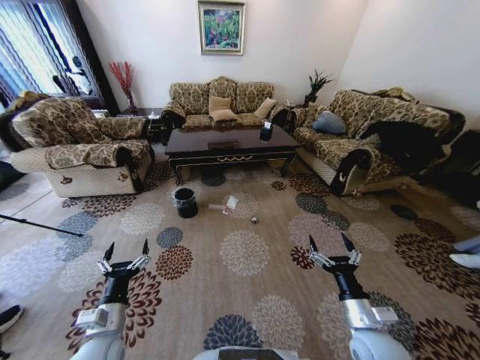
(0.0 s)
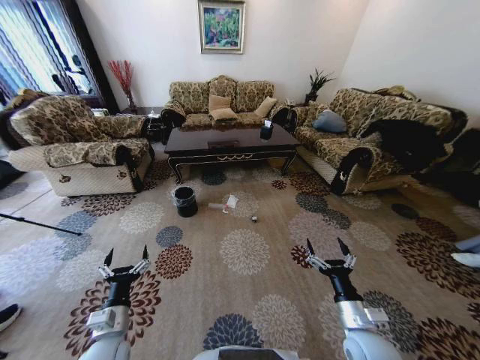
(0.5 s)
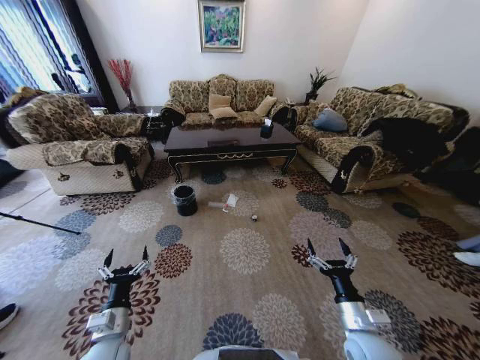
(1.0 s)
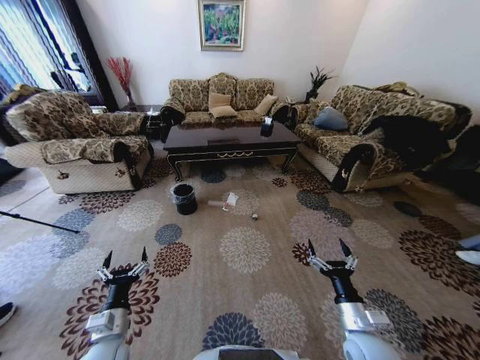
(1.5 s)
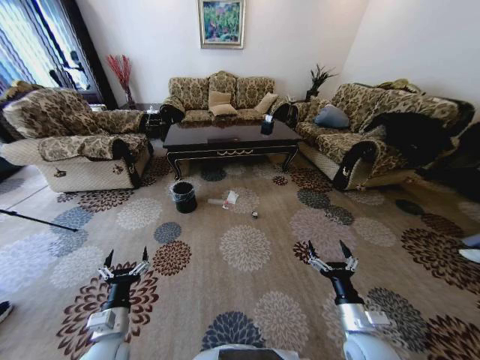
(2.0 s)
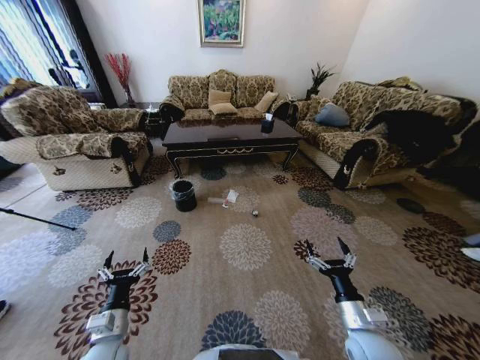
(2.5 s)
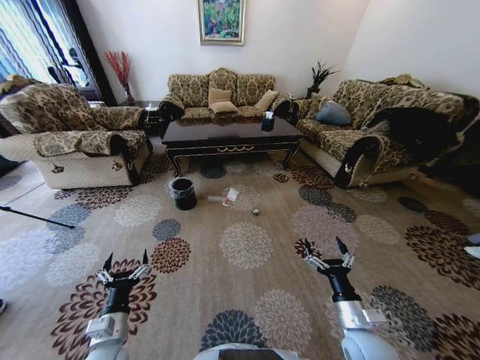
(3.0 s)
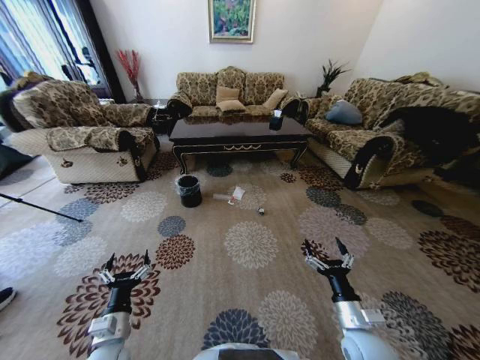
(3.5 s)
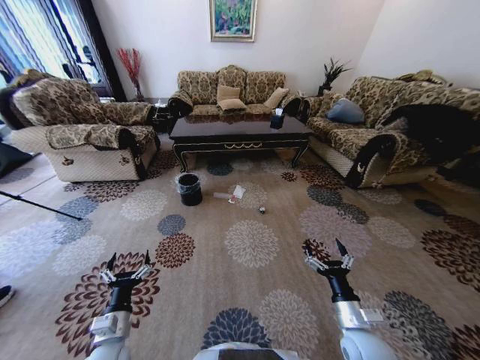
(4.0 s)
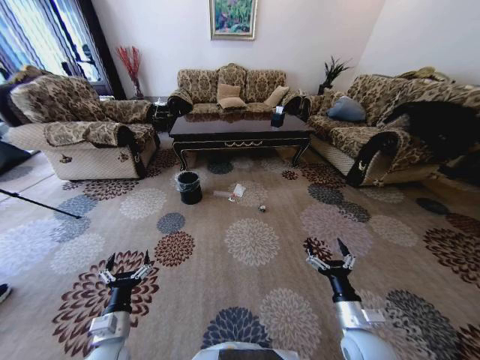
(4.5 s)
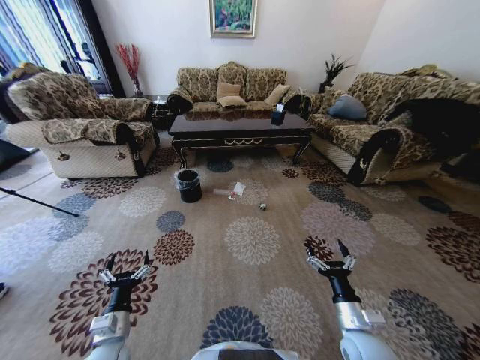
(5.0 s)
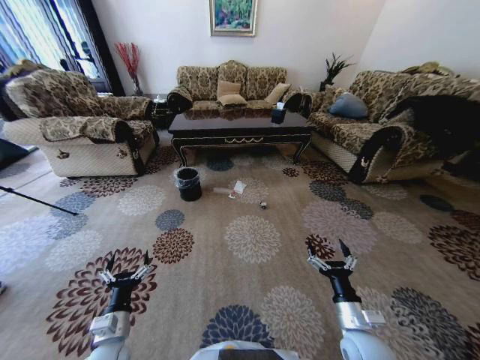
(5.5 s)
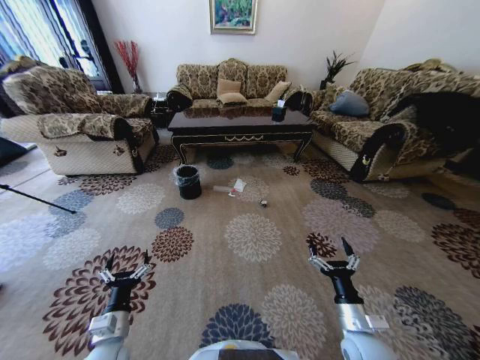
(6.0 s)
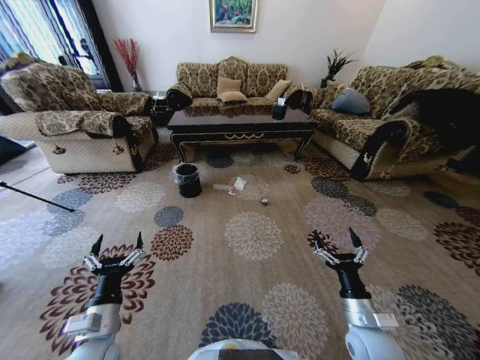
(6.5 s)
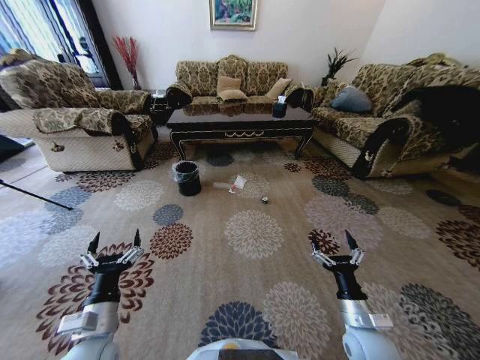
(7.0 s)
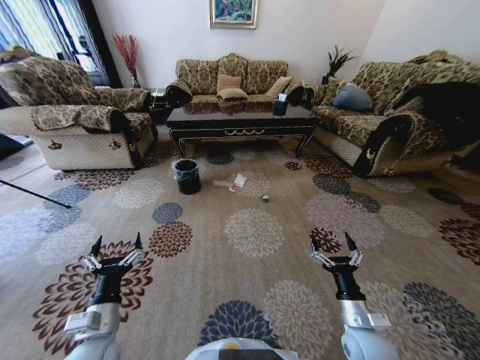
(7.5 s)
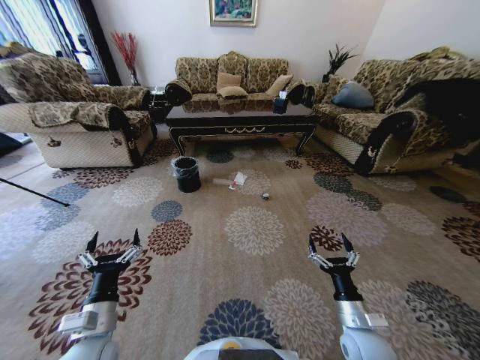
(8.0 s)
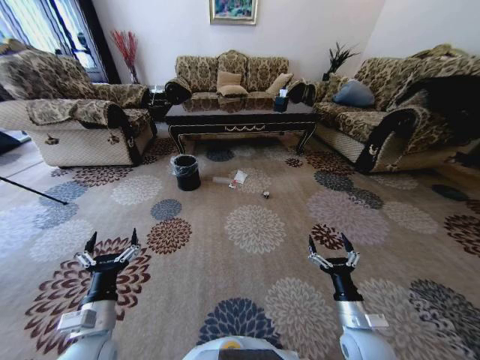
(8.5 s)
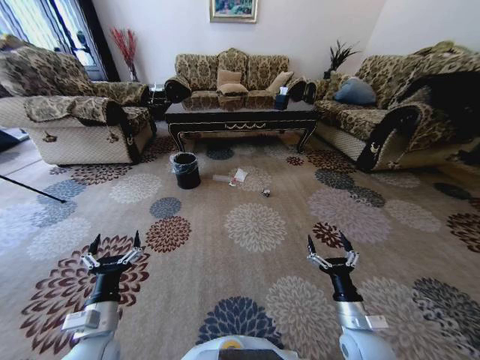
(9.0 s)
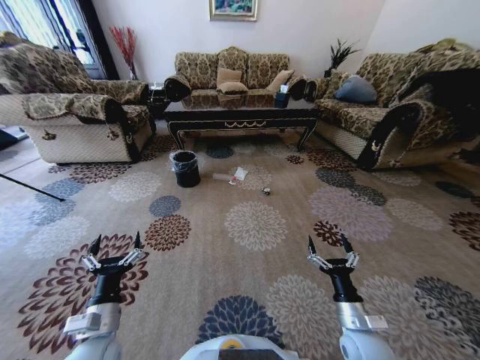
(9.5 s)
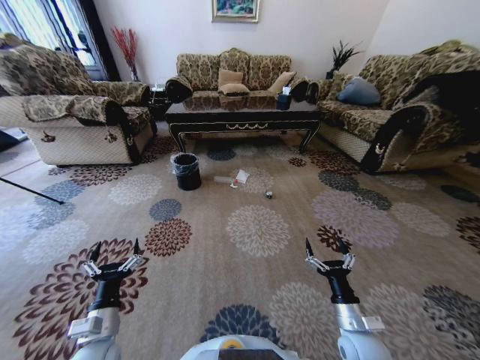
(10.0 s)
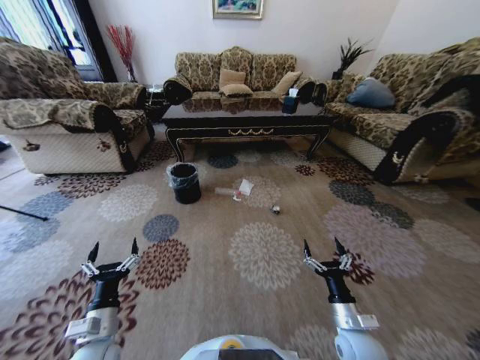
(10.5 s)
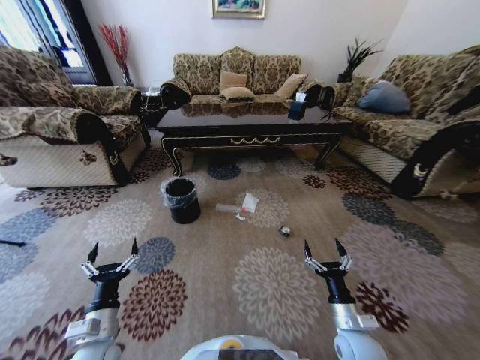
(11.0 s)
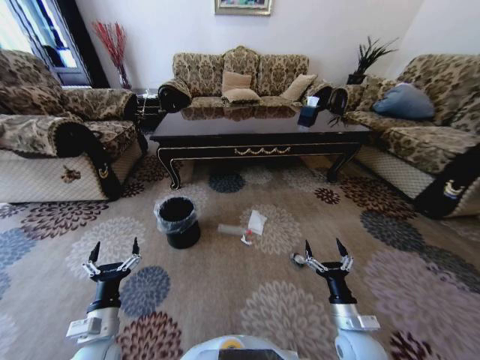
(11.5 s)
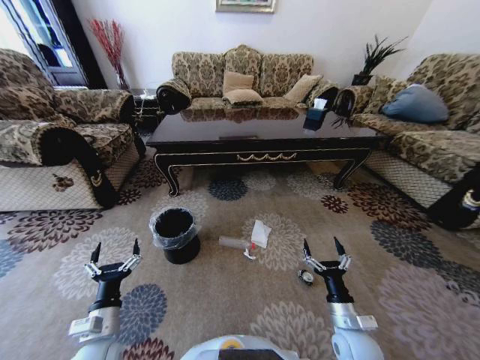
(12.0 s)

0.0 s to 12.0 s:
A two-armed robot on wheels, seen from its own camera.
Task of the whole recording: Move to the front of the table and pick up the trash from the floor, then place it into the trash bin.
6.0 to 8.0 s: The left gripper shifts some 10 cm upward.

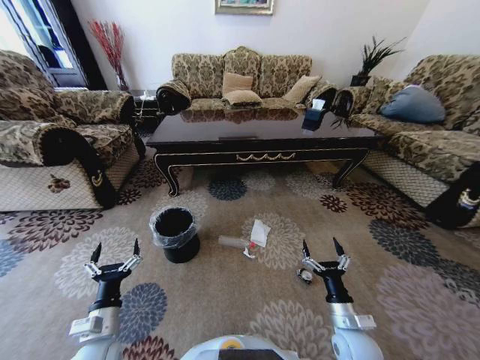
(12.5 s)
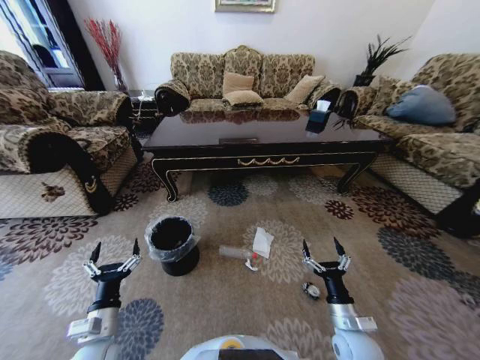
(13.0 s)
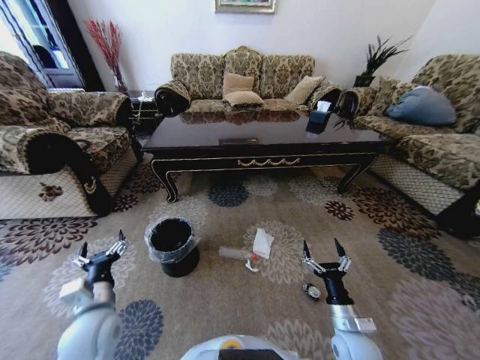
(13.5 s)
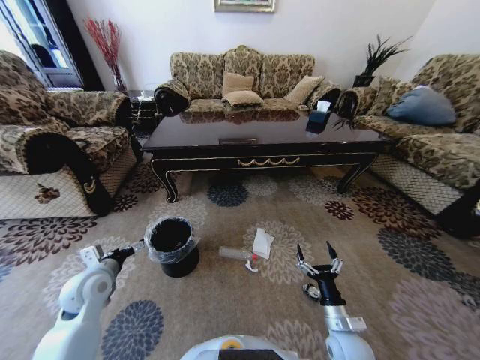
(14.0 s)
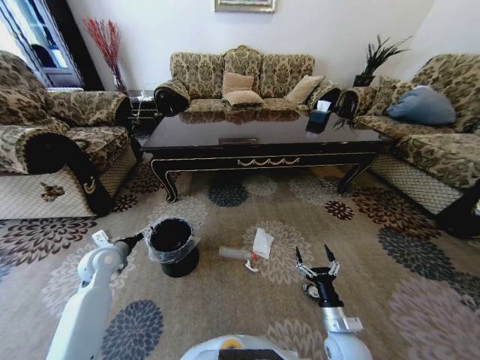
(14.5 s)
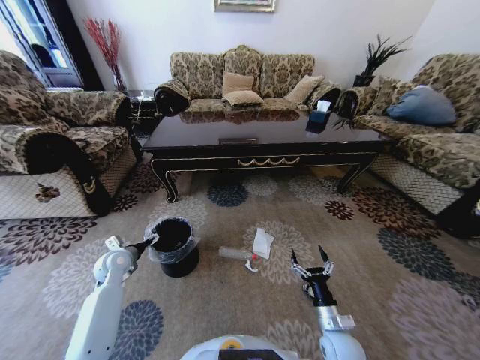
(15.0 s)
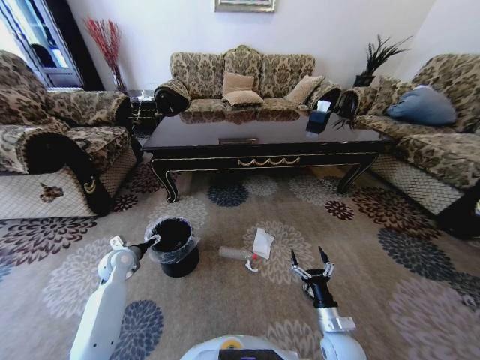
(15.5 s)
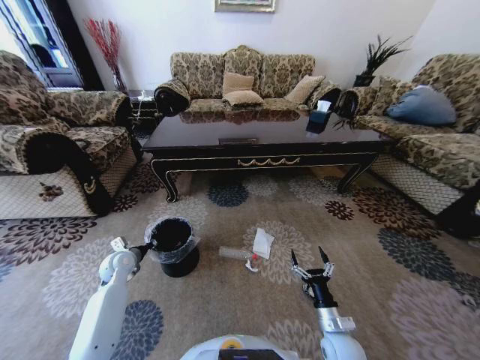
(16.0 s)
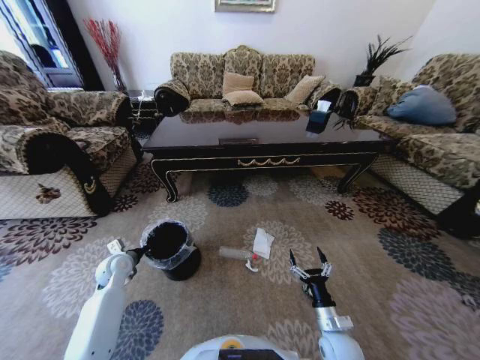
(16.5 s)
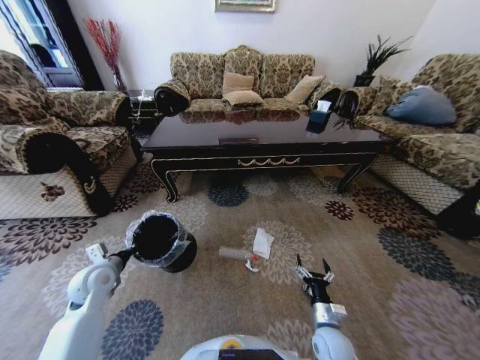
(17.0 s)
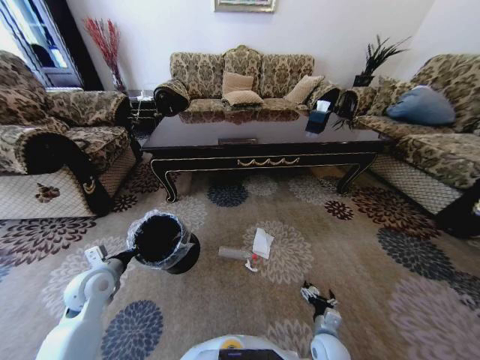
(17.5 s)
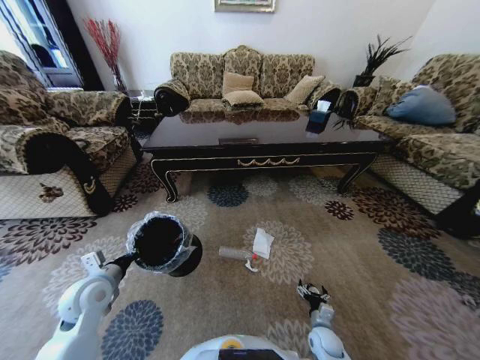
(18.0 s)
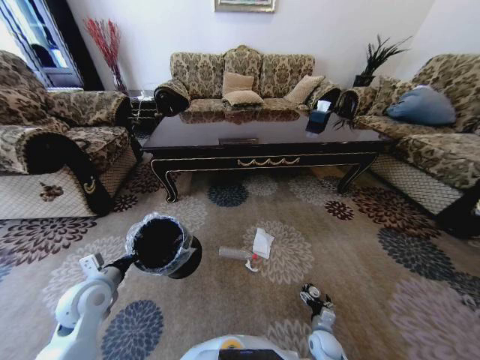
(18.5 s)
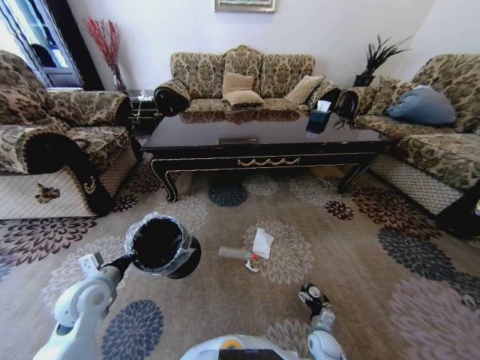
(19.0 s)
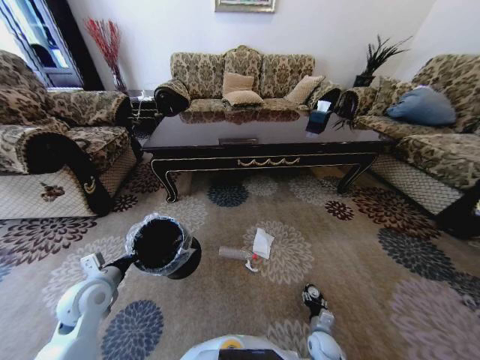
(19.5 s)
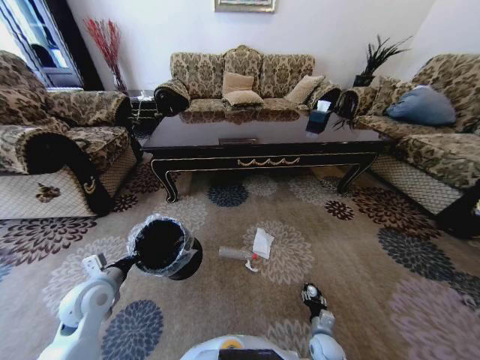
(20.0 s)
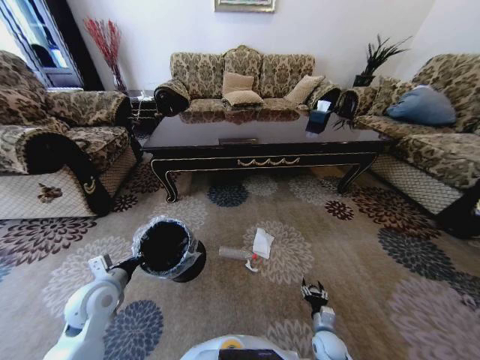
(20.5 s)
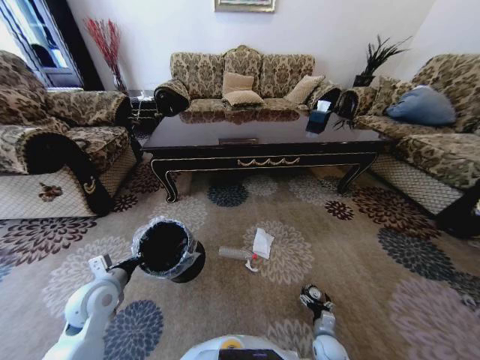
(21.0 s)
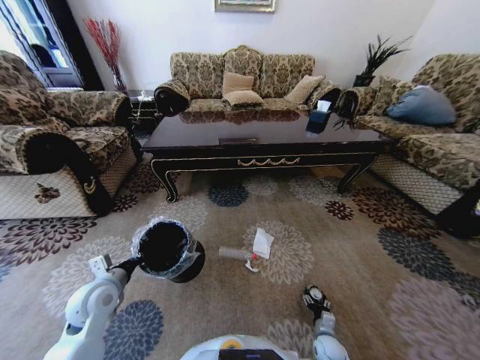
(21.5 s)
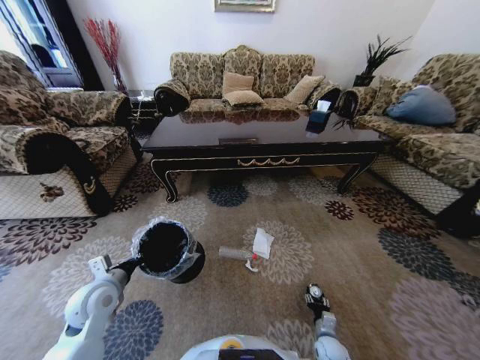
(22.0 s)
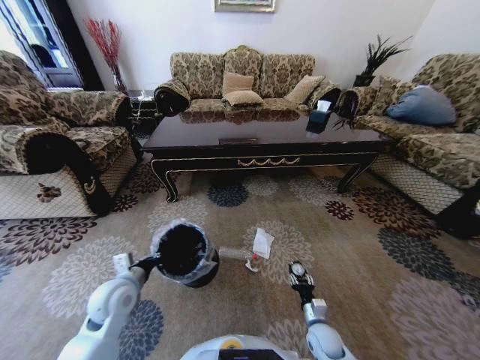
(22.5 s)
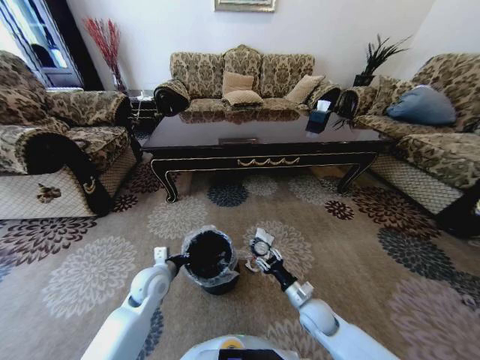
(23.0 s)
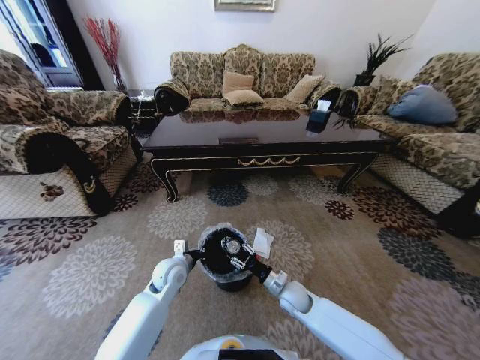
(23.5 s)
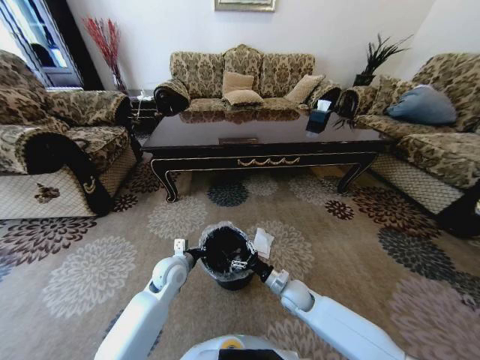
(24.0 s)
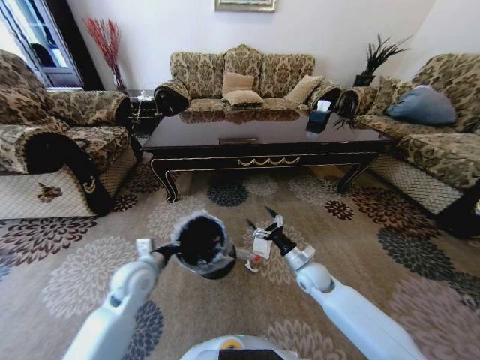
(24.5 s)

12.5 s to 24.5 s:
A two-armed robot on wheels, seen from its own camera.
Task of the whole recording: Move to the front of the table and pick up the trash from the floor, then place it into the trash bin.
12.5 to 14.5 s: The left gripper moves forward and to the left, about 20 cm.
14.5 to 16.5 s: The left gripper is displaced downward by about 5 cm, and closes up.
16.5 to 18.5 s: The left gripper shifts roughly 15 cm backward and upward; the right gripper heads downward, covering approximately 15 cm.
18.5 to 20.5 s: The right gripper closes up.
20.5 to 22.5 s: The right gripper moves upward, approximately 5 cm, and opens, then closes once more.
22.5 to 24.5 s: The right gripper travels forward and upward by roughly 20 cm, and opens its fingers, while the left gripper goes to the right and returns, roughly 10 cm each way.

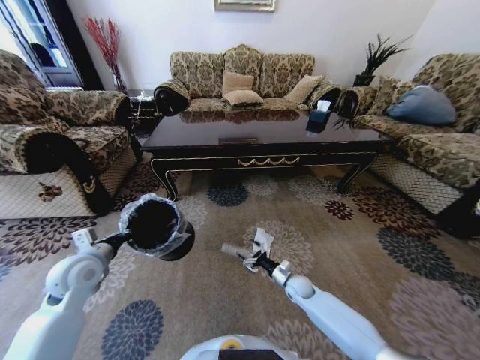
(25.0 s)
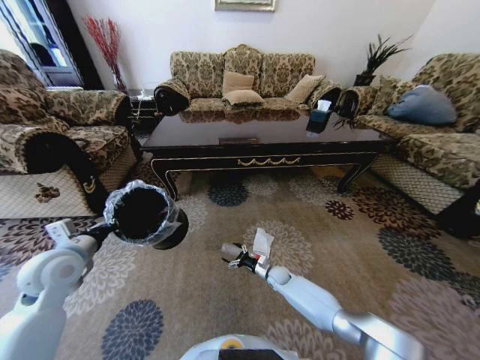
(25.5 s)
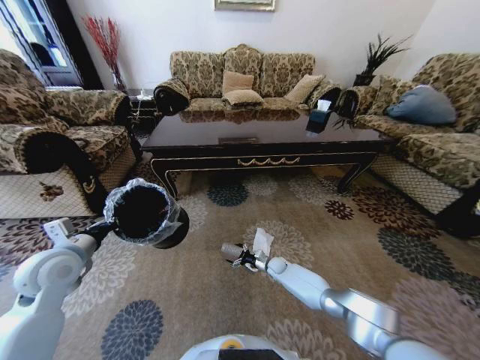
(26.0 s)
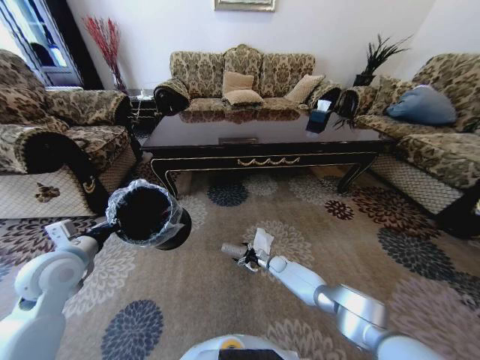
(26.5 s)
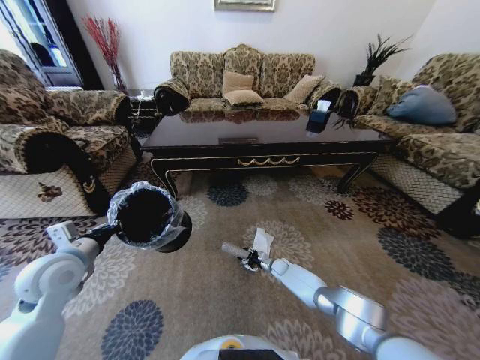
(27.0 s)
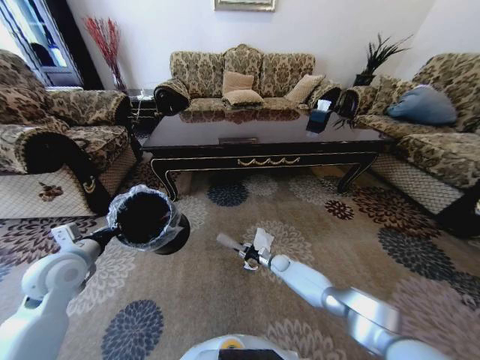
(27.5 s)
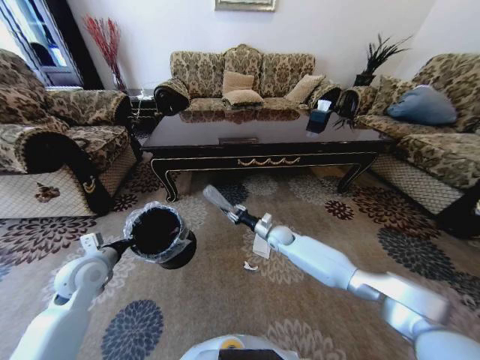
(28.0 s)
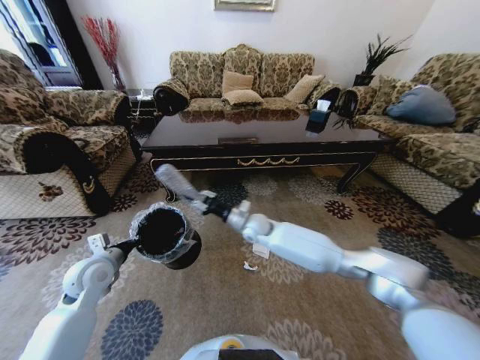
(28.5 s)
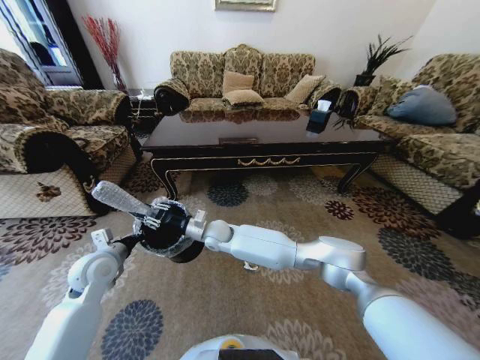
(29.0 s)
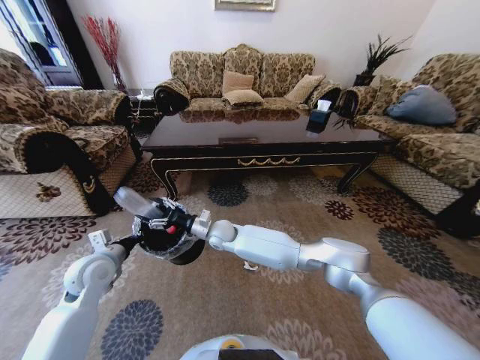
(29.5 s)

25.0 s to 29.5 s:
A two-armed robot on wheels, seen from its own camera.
Task of the whole recording: Move to the front of the table and pick up the trash from the floor, then place it into the trash bin.
25.0 to 27.0 s: The right gripper travels forward and downward by roughly 15 cm, and closes up.
27.0 to 29.5 s: The left gripper goes roughly 5 cm downward, while the right gripper moves upward and to the left, about 40 cm.
